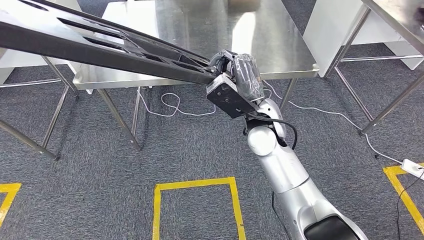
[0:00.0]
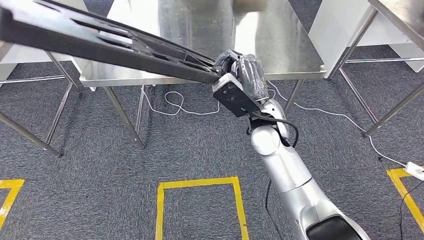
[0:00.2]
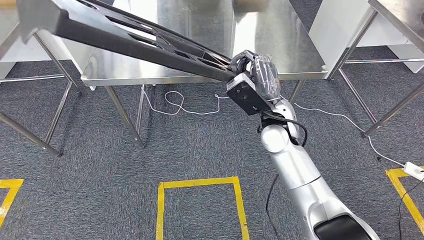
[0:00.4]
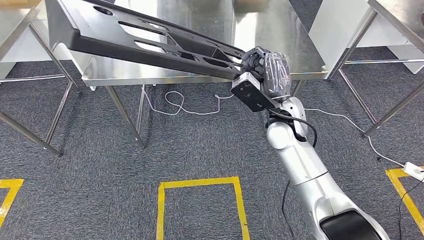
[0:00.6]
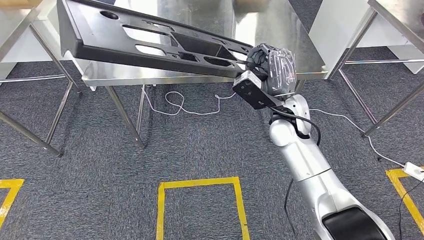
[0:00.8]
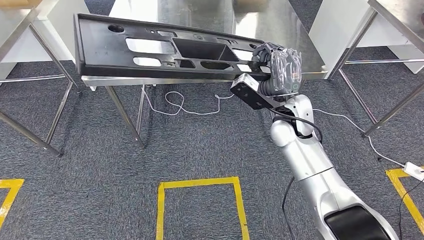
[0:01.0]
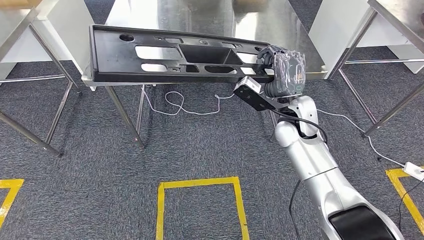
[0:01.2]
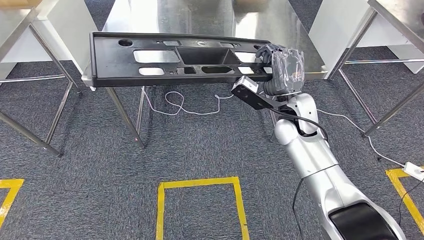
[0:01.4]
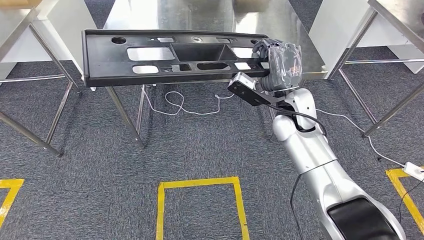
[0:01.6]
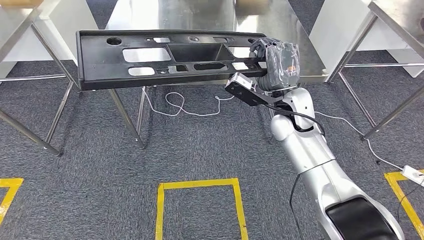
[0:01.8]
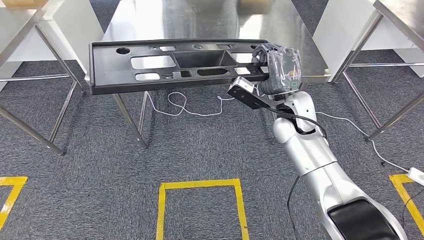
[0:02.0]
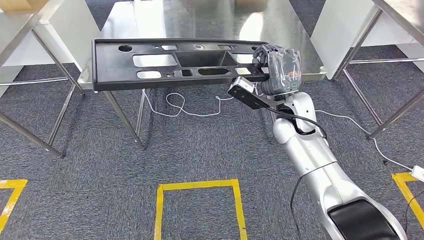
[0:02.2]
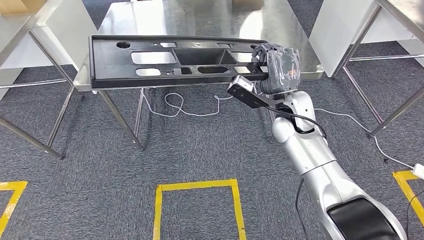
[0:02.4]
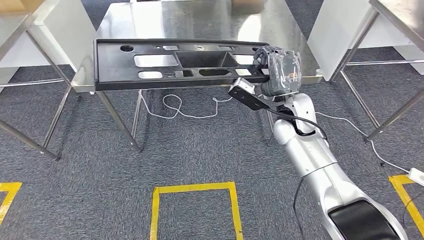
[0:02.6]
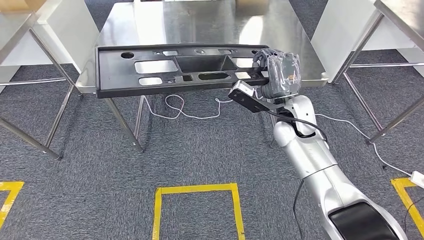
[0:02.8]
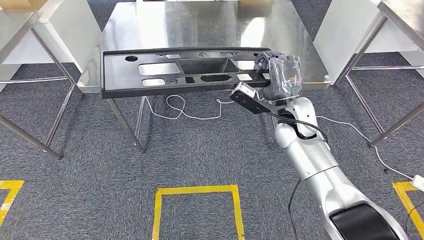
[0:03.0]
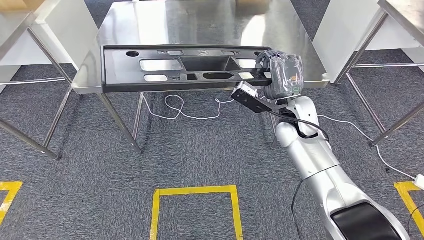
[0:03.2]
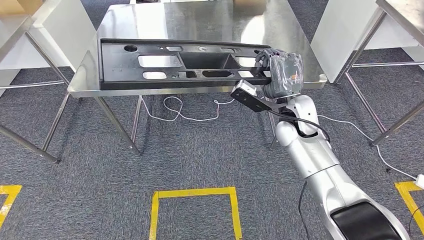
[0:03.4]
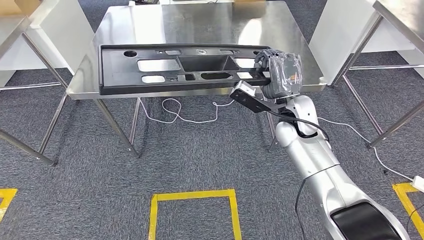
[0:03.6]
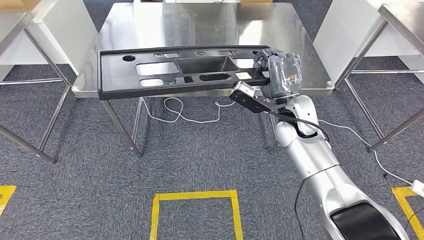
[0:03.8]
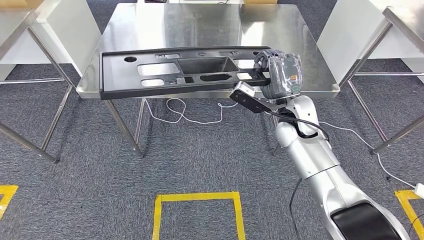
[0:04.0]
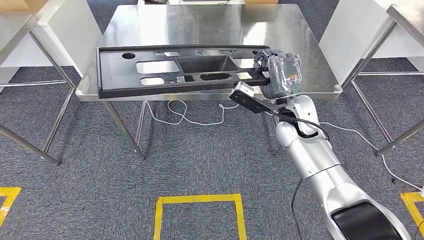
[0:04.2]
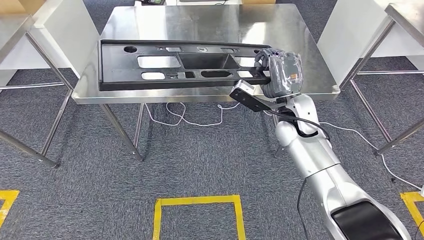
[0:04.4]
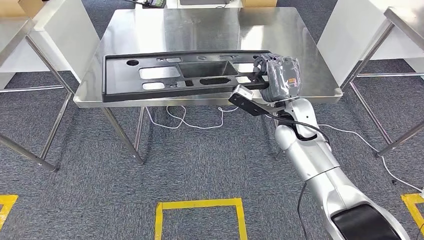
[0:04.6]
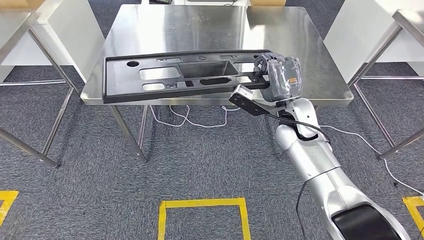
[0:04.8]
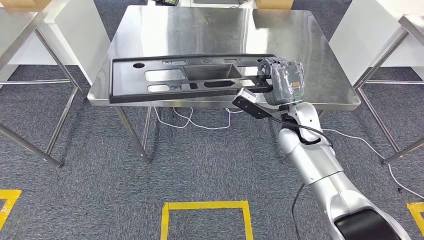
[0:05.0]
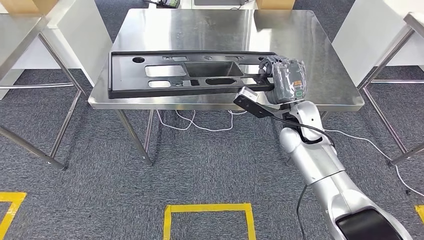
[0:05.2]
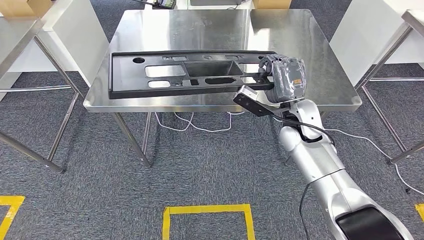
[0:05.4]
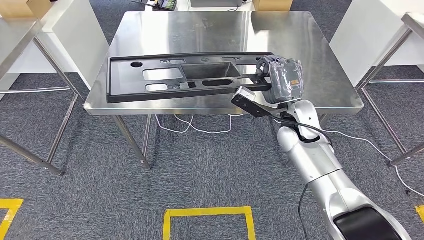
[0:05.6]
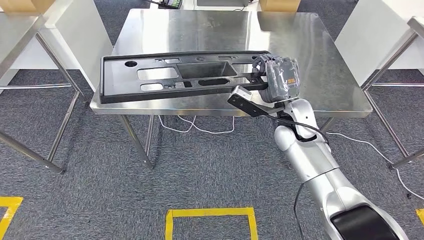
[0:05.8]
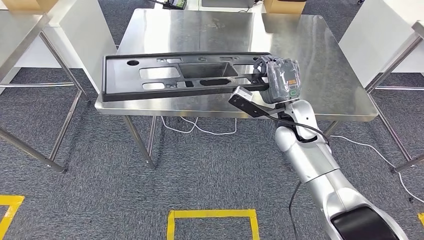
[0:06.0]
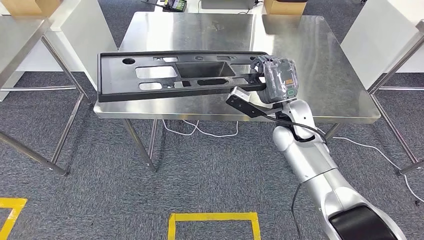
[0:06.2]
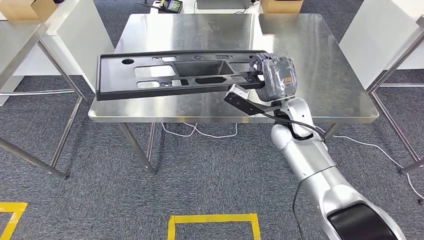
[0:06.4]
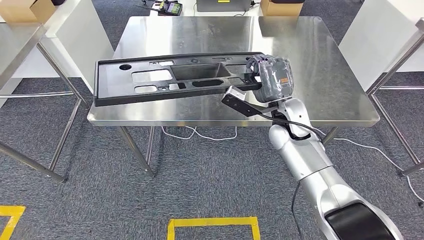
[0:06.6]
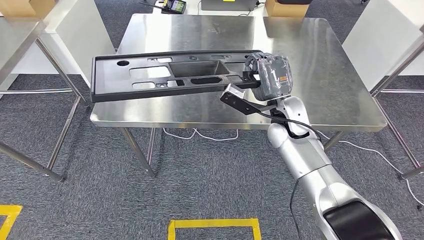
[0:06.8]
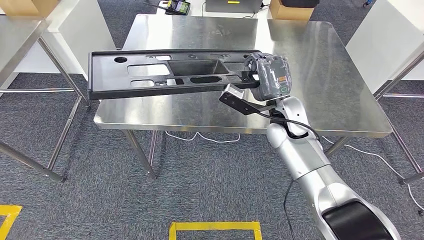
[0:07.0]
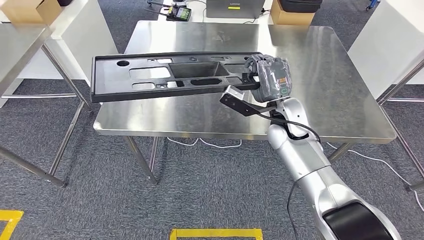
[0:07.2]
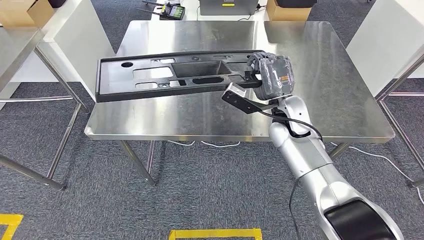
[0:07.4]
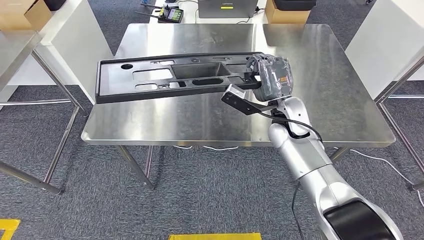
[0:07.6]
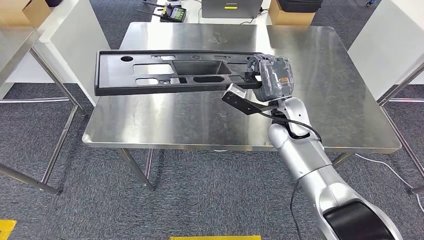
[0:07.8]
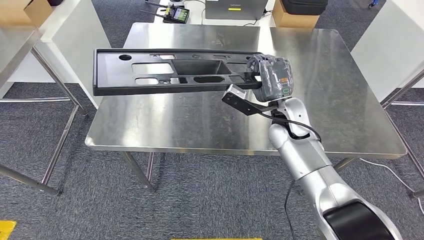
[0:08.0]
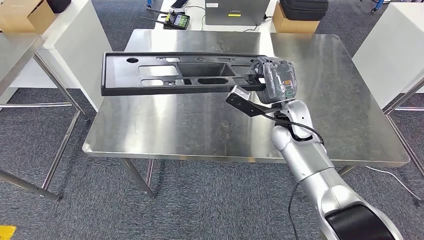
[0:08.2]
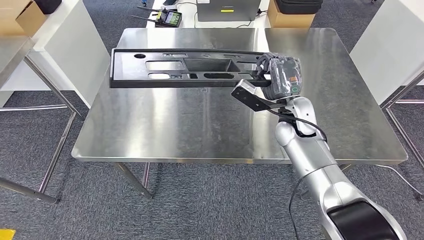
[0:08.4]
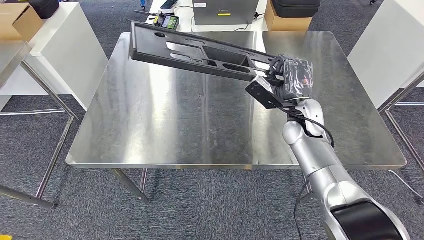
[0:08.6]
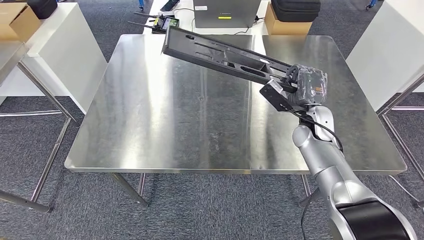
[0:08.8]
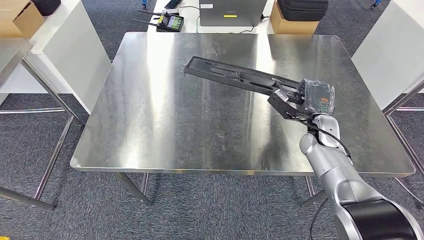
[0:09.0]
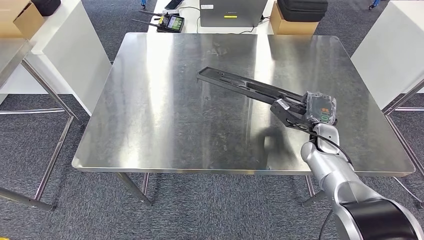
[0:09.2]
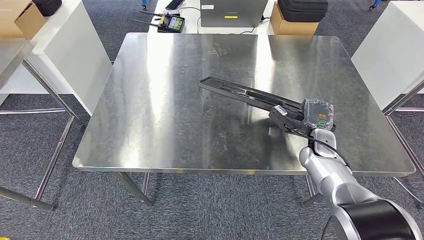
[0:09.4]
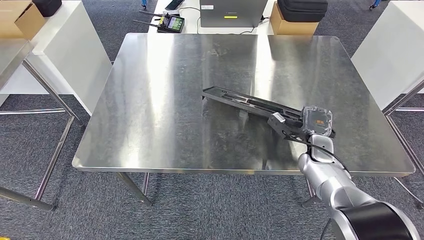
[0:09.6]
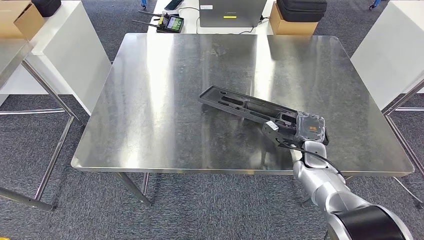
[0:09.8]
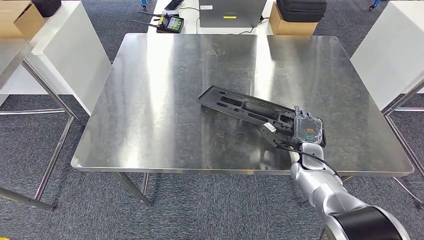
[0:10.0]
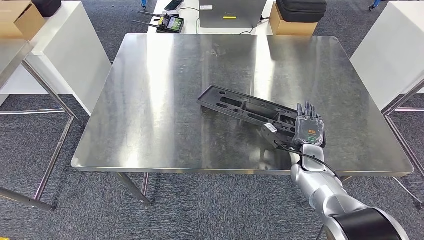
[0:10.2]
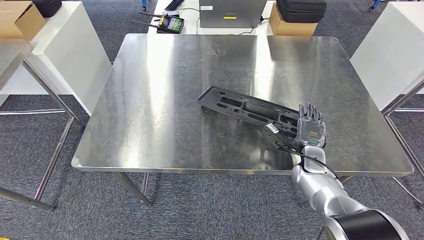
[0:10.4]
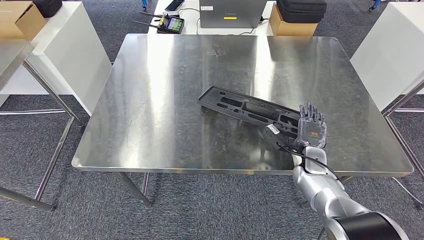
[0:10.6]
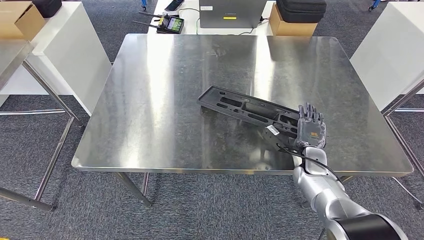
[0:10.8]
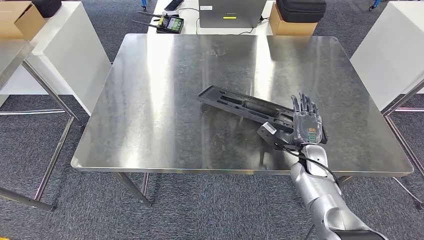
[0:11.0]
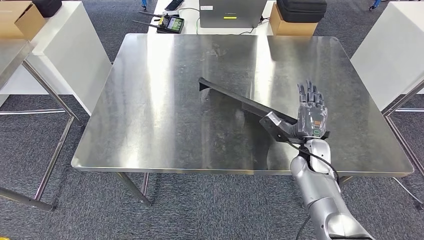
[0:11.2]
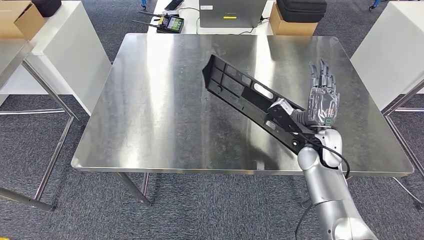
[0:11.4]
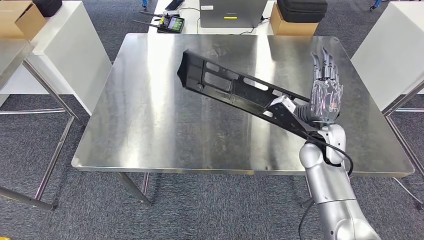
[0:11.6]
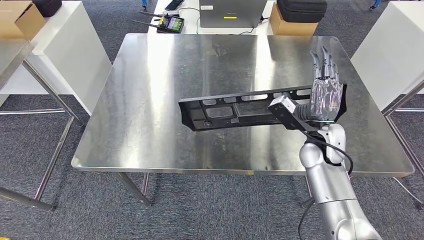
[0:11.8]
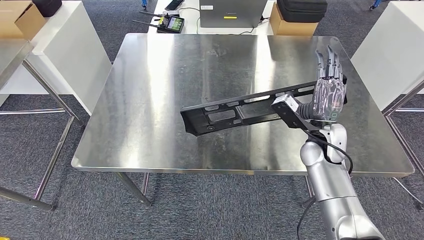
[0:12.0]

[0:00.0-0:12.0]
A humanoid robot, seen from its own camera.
0:09.0 to 0:10.4: The right hand moves downward, some 10 cm.
0:10.4 to 0:12.0: The right hand moves upward, roughly 15 cm.

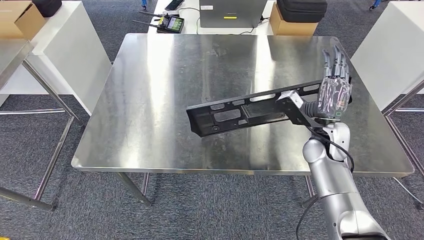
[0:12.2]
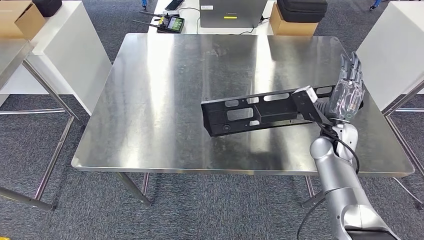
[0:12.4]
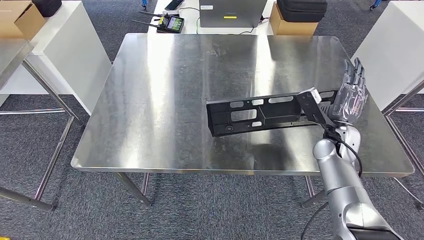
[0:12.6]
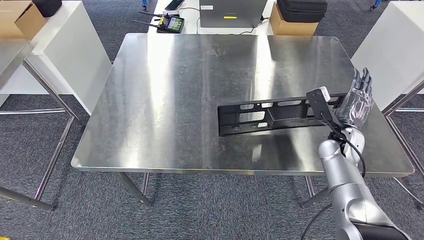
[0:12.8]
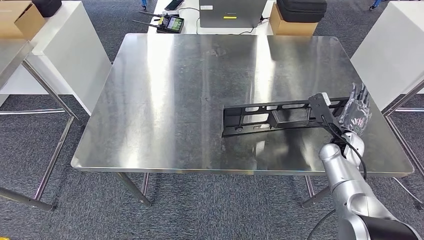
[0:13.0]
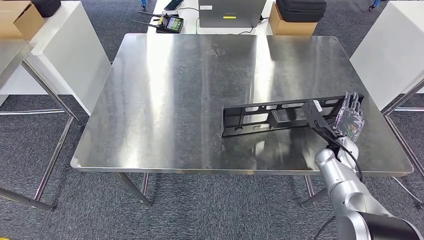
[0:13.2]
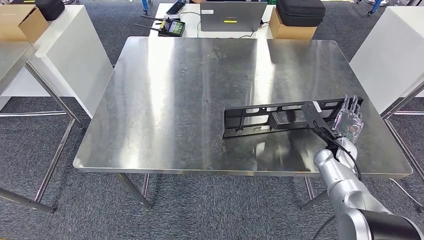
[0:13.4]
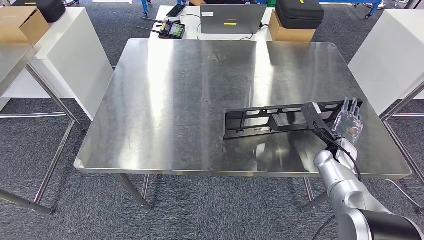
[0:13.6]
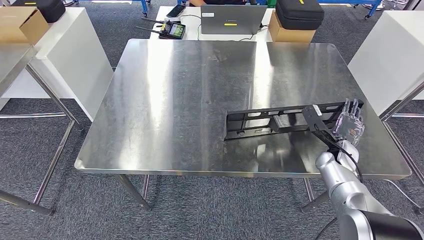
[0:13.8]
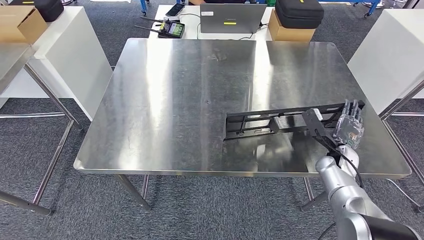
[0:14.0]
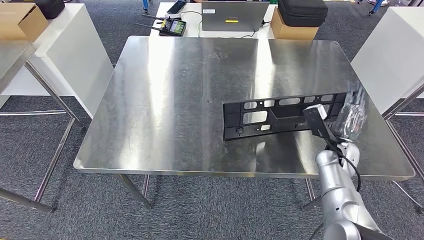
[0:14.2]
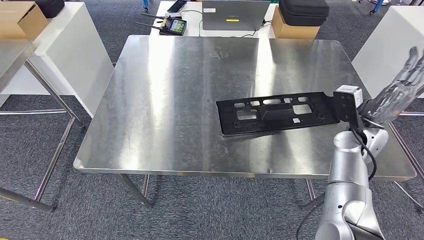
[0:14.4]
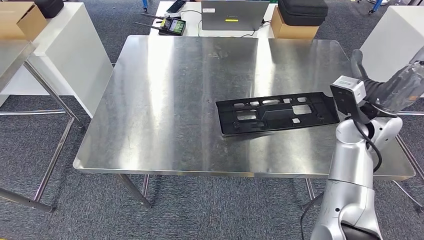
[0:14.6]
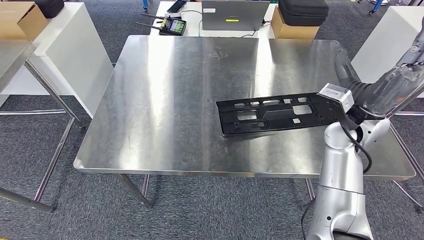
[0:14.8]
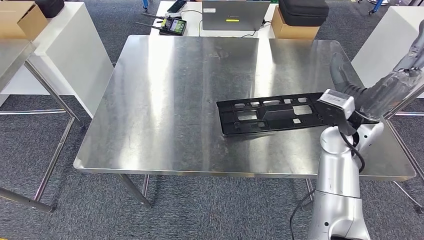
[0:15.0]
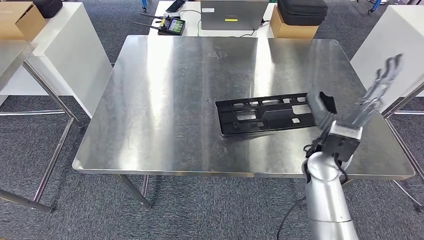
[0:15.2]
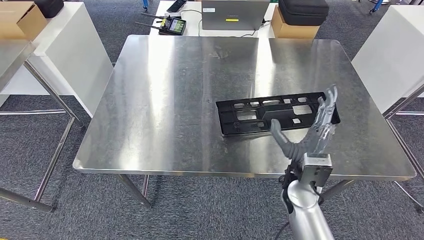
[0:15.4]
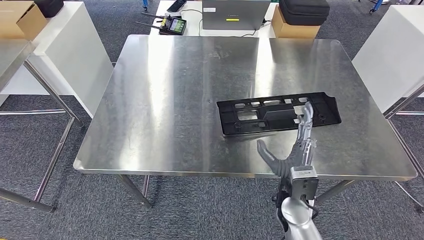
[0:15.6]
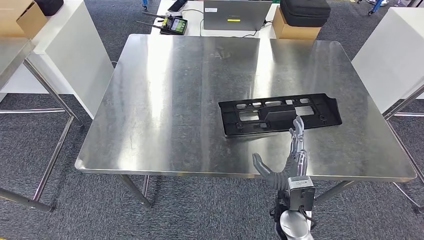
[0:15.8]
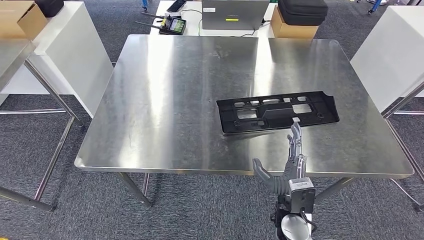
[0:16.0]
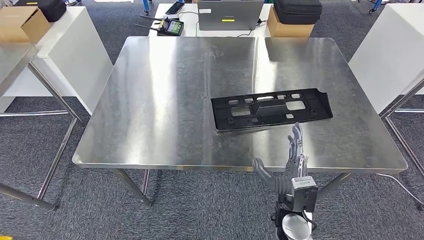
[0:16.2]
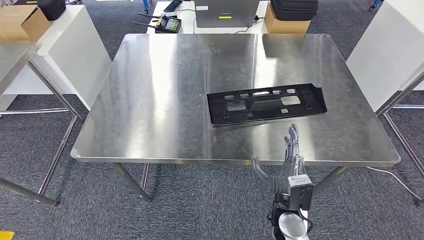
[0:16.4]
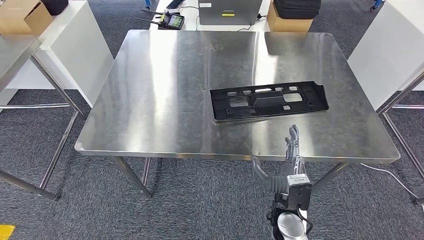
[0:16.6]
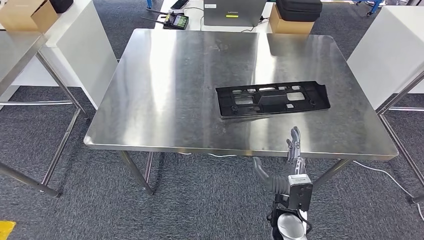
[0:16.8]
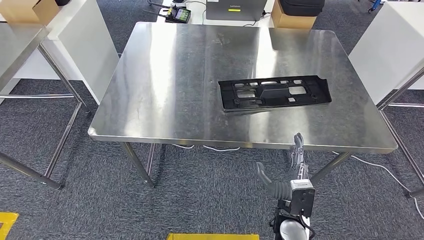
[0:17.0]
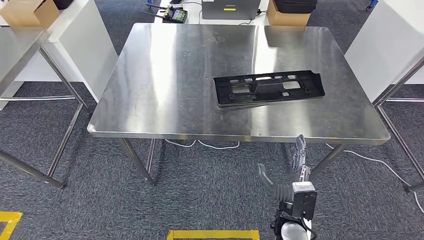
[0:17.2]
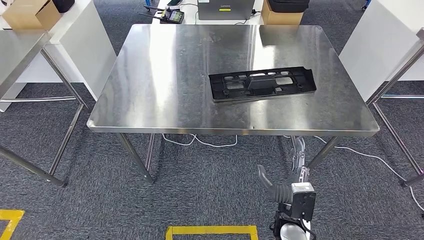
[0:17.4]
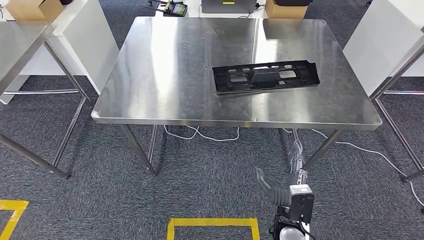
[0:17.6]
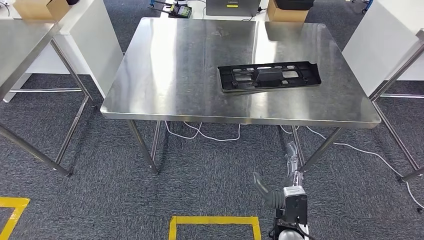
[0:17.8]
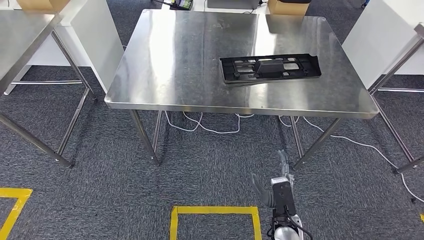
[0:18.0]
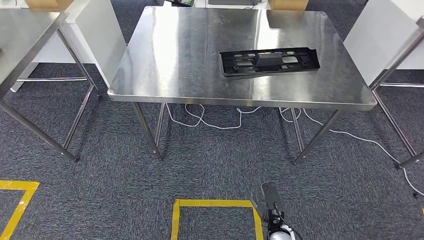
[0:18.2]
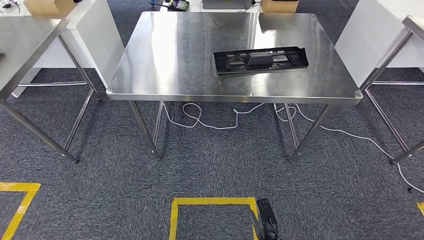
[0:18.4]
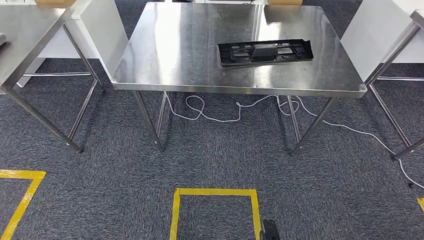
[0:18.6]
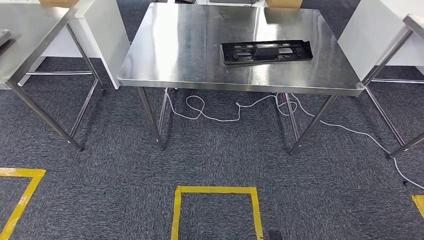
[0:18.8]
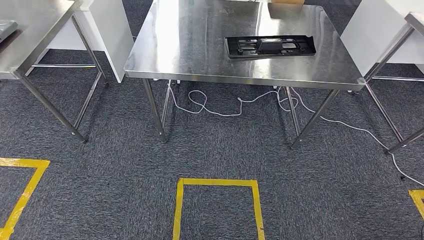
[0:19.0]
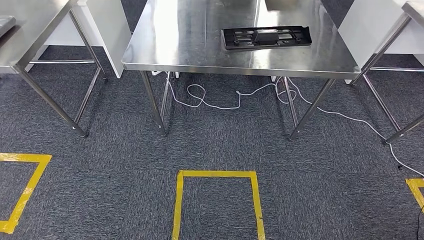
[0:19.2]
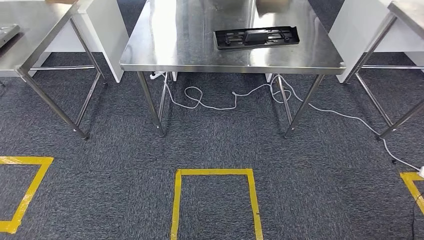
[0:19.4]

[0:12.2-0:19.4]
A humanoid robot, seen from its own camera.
Step, 0:12.2 to 0:19.2: Insert the large material into the corresponding slot on the workbench.
